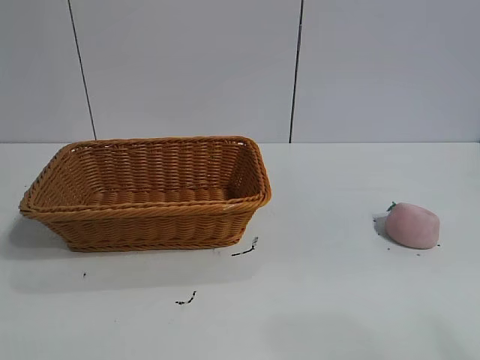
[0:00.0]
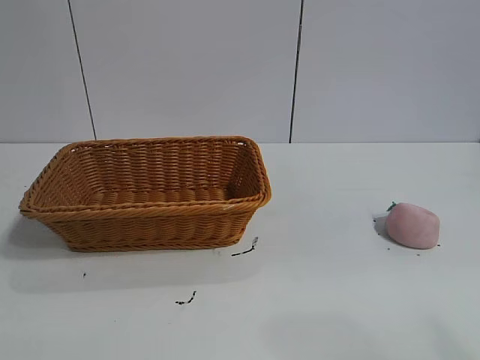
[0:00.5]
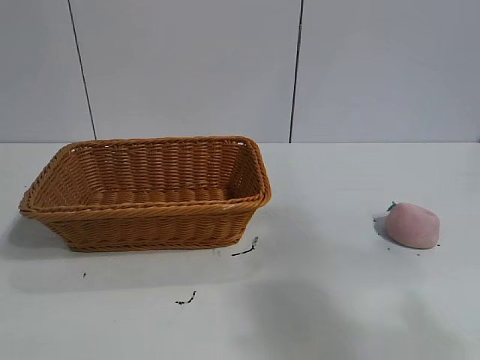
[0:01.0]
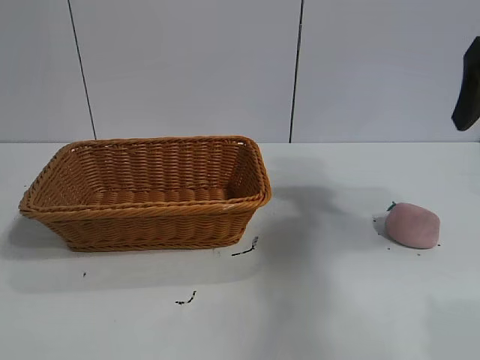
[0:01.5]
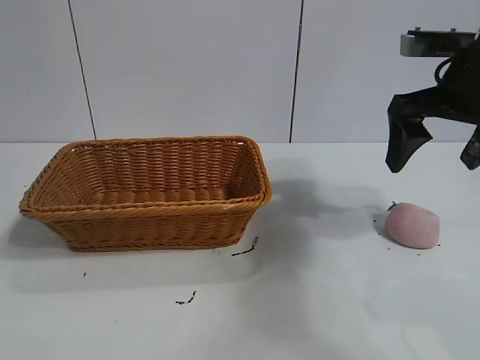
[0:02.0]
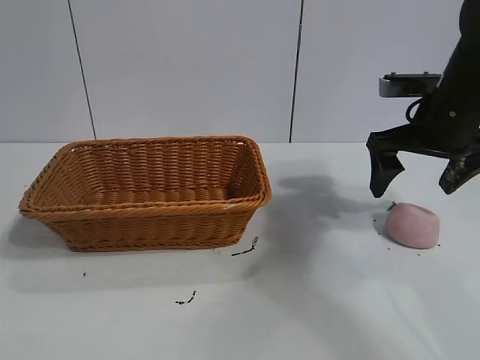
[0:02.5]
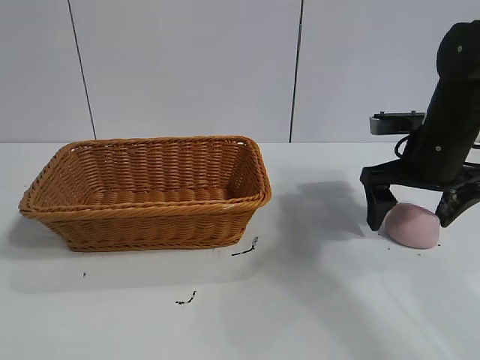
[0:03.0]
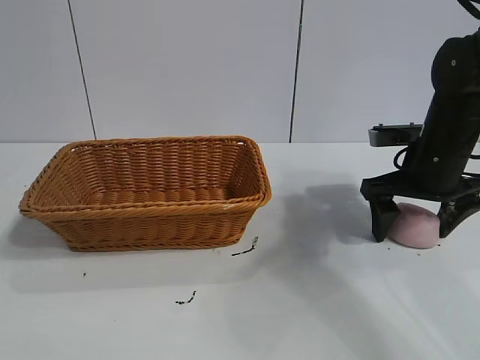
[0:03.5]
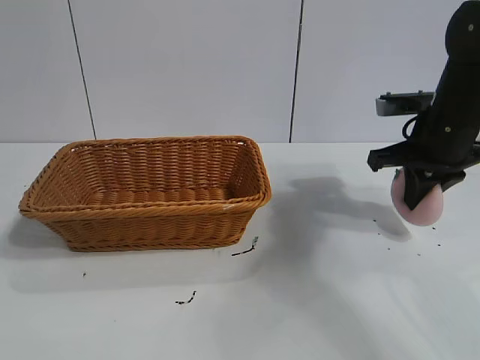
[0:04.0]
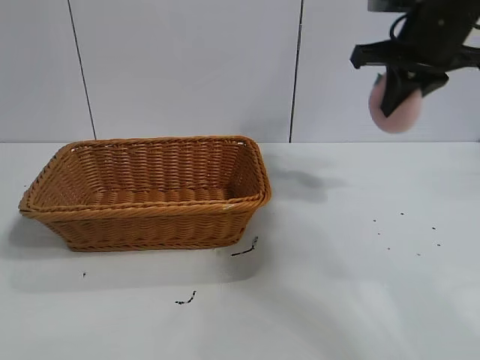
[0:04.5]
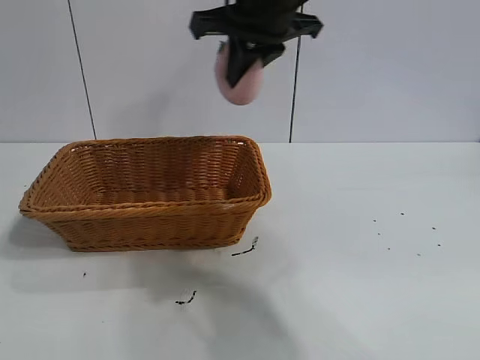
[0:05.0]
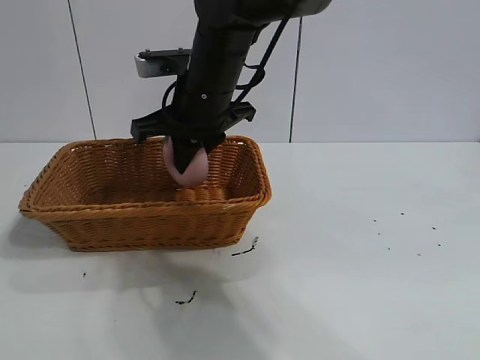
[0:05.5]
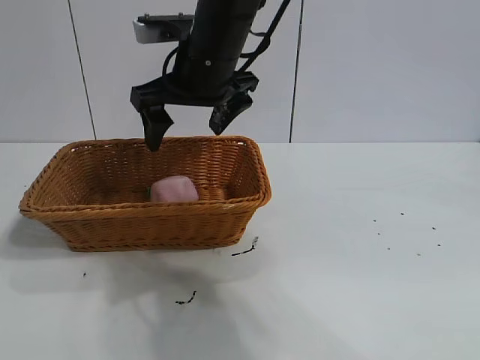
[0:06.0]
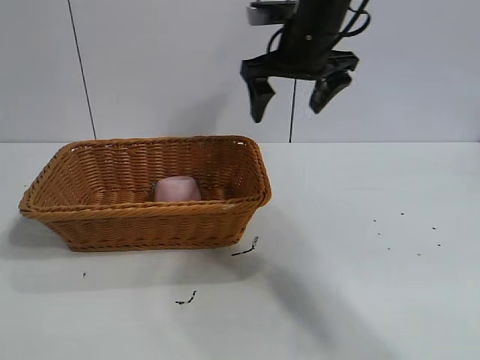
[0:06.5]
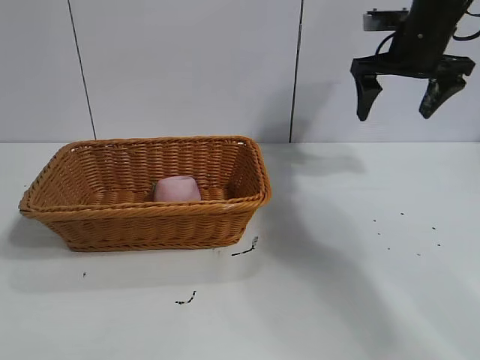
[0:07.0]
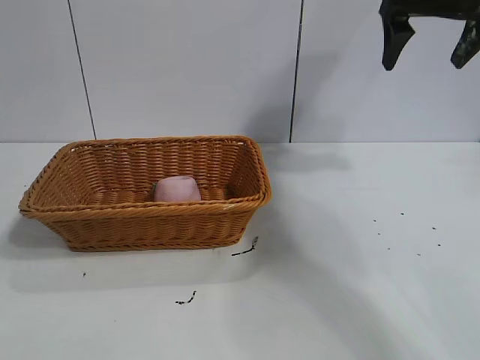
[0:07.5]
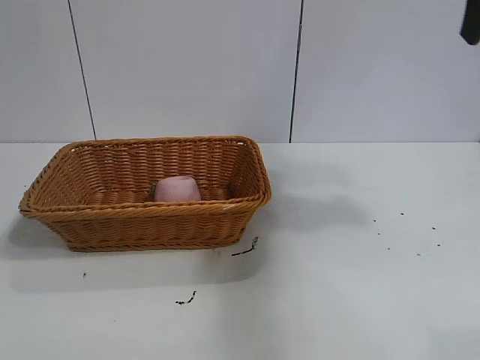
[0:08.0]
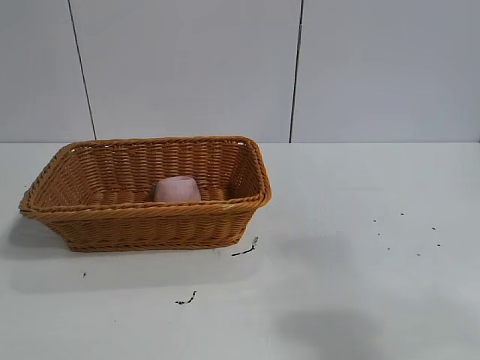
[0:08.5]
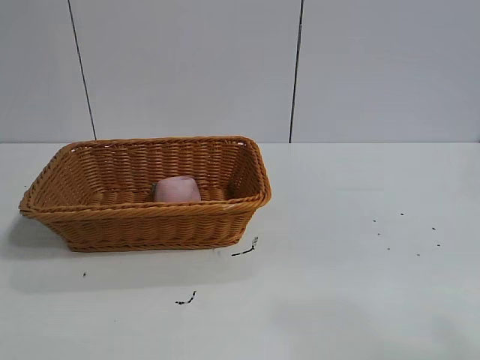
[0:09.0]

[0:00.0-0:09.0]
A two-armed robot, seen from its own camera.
Task of the whole recording: pick up the peach and put it into the basket.
Step, 0:00.0 to 0:03.5: Grasp the peach with right gripper.
Step, 0:04.0 to 0:05.5: Place the peach in the basket with right gripper.
